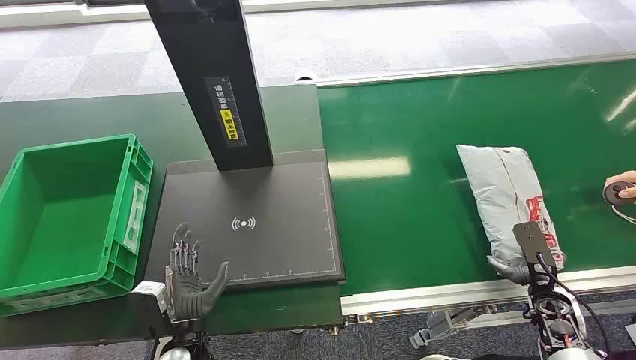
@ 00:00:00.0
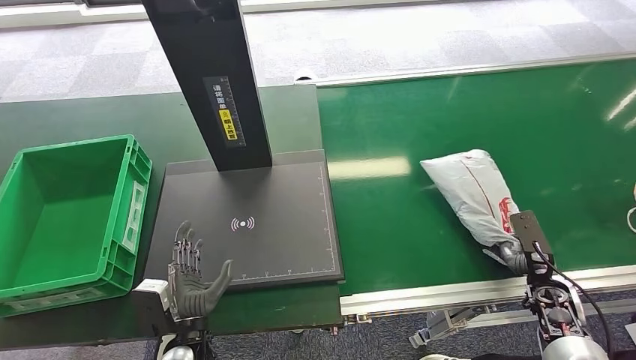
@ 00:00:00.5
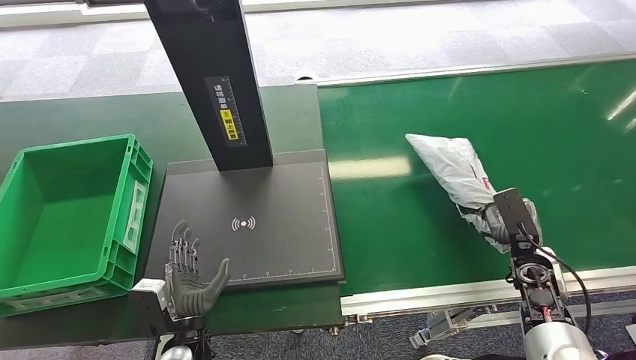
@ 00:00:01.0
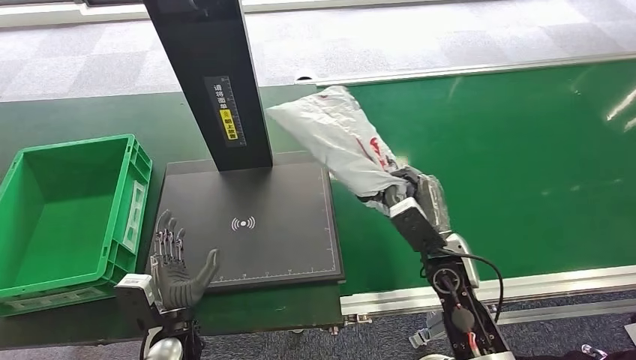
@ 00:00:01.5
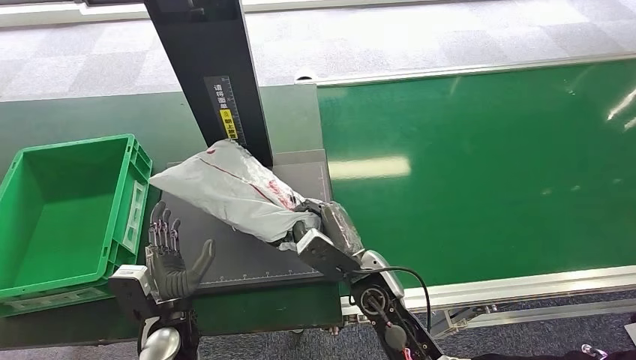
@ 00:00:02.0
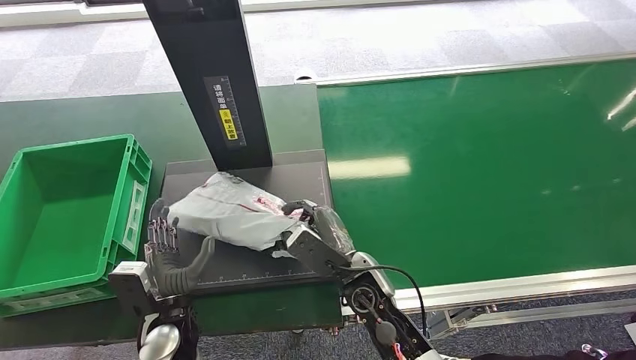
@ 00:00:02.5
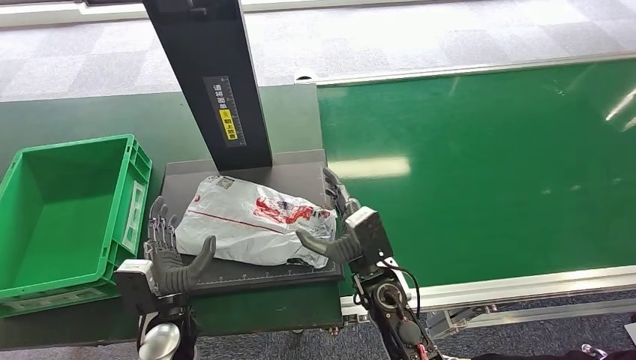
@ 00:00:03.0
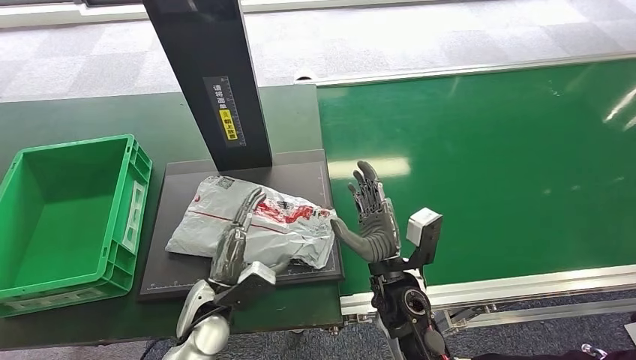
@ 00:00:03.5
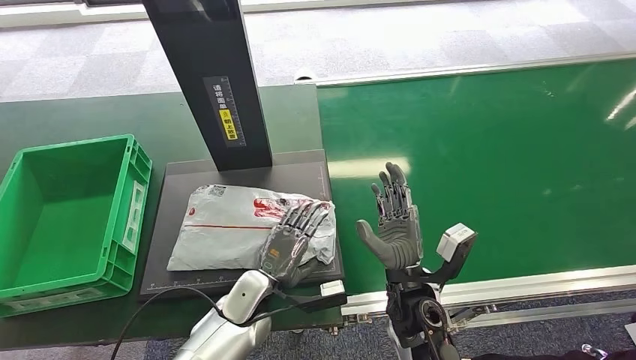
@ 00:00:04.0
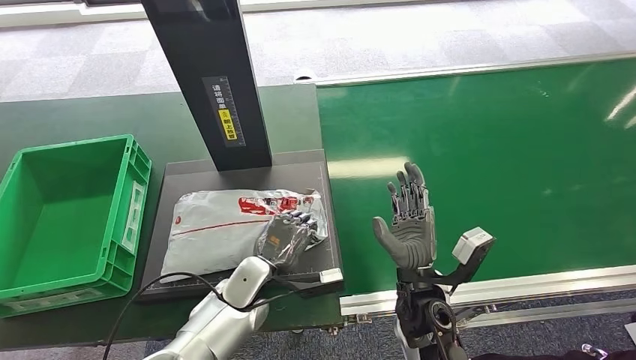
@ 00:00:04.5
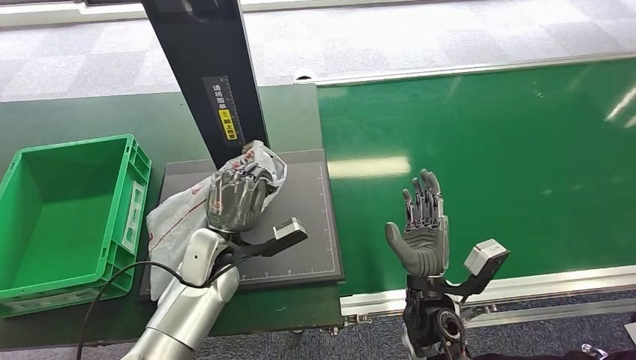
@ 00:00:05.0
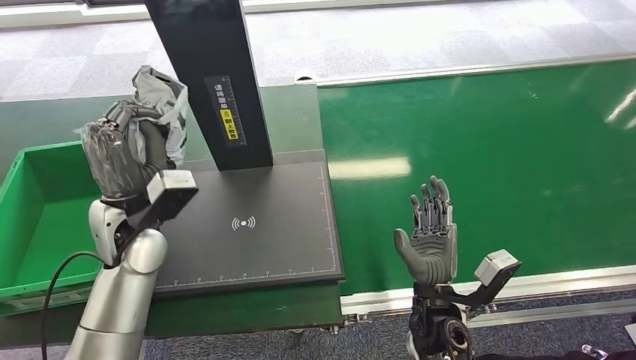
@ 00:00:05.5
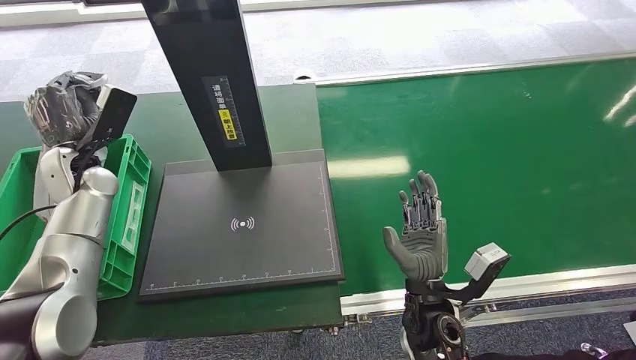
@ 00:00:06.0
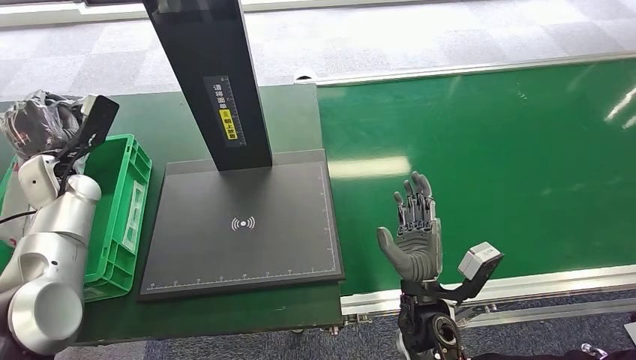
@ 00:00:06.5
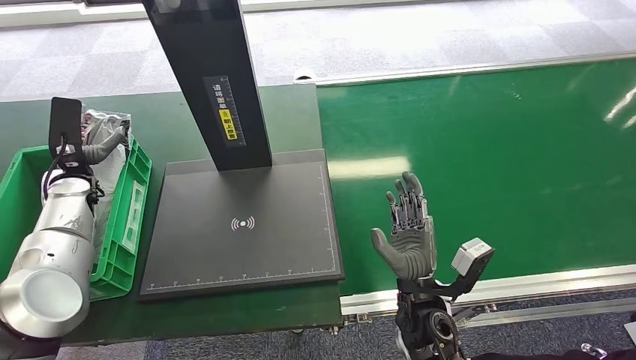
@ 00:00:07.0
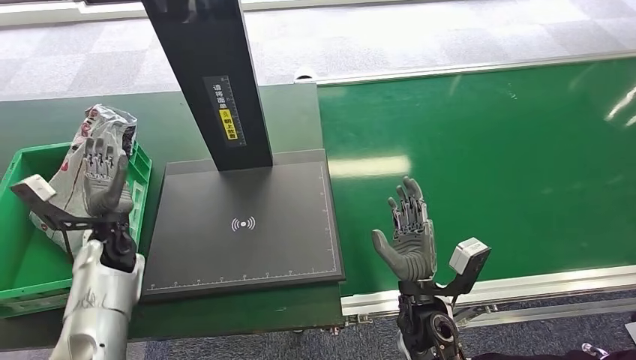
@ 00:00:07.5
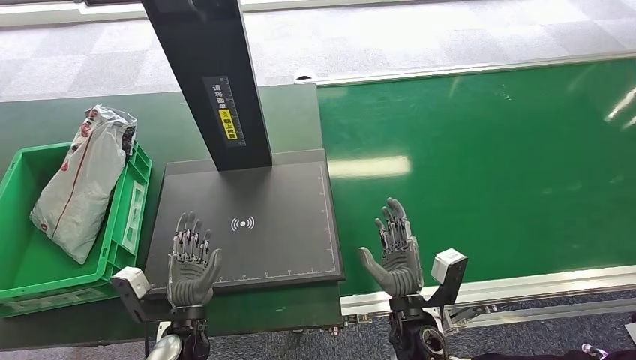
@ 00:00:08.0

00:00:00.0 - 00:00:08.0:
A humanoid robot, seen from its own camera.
Step, 00:00:00.0 - 00:00:01.5: Pick up the package from the conveyor belt.
Step, 00:00:02.0 - 00:00:03.5: Place the package onto the inbound machine.
Step, 00:00:04.0 - 00:00:05.5: Pick up the package from the inbound machine.
Step, 00:00:06.0 - 00:00:08.0: Place the package into the parcel locker.
00:00:02.0 - 00:00:04.0: The left hand shifts roughly 10 cm to the right and forward. The right hand moves to the right, about 5 cm.
00:00:06.0 - 00:00:08.0: The left hand travels backward, to the right and downward by about 35 cm.
